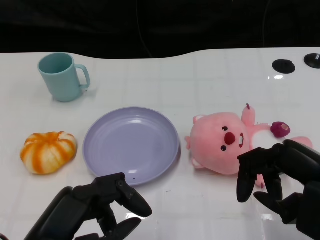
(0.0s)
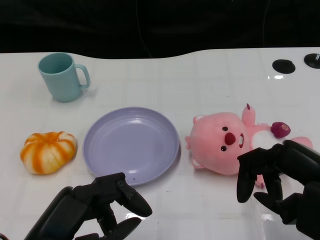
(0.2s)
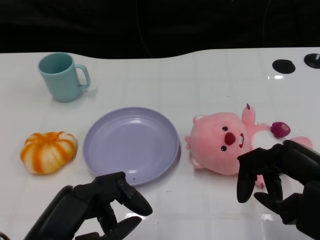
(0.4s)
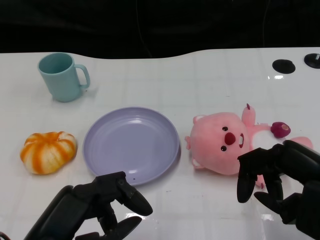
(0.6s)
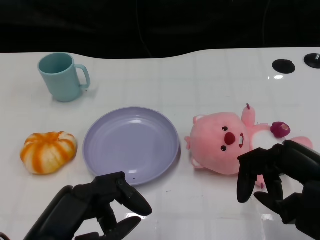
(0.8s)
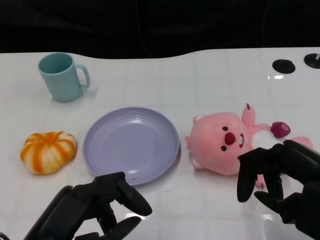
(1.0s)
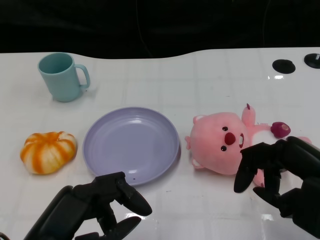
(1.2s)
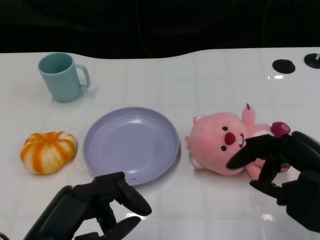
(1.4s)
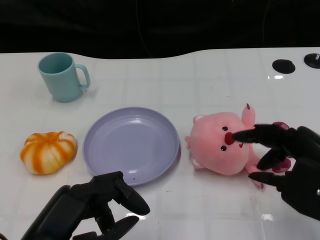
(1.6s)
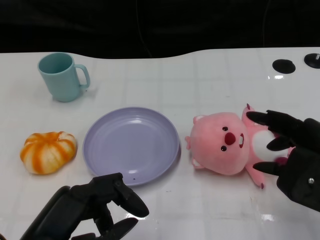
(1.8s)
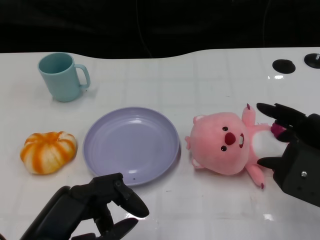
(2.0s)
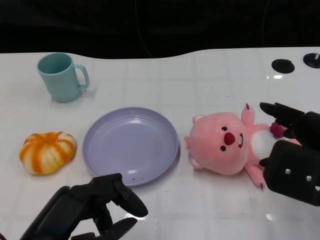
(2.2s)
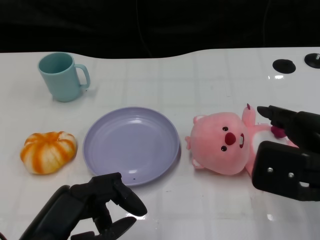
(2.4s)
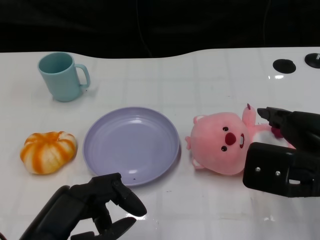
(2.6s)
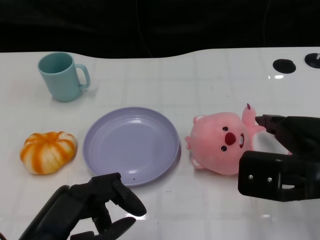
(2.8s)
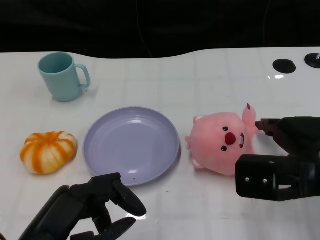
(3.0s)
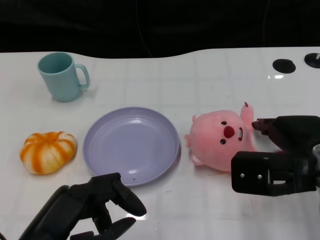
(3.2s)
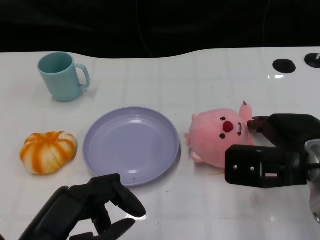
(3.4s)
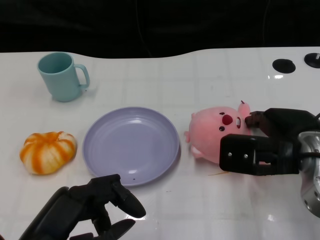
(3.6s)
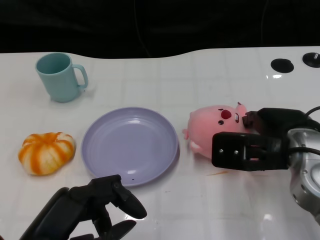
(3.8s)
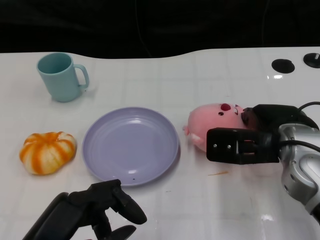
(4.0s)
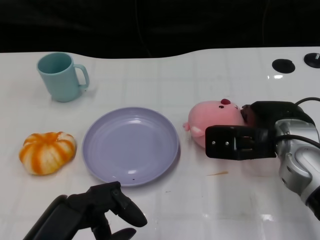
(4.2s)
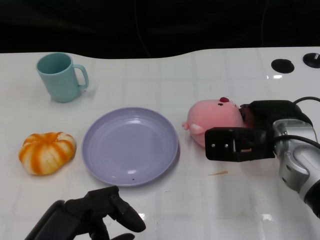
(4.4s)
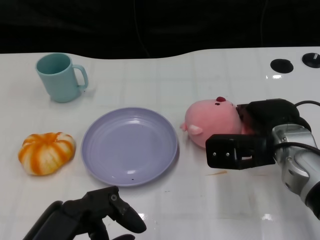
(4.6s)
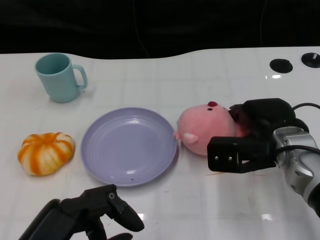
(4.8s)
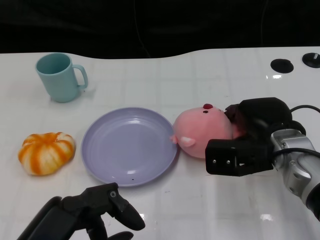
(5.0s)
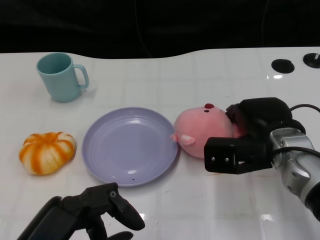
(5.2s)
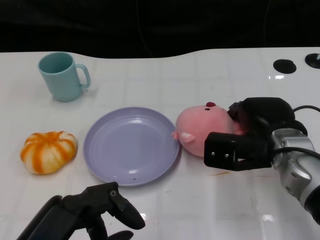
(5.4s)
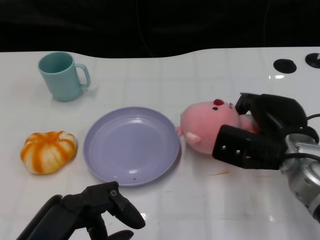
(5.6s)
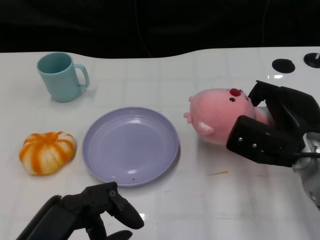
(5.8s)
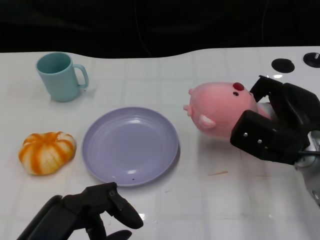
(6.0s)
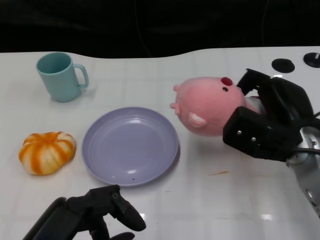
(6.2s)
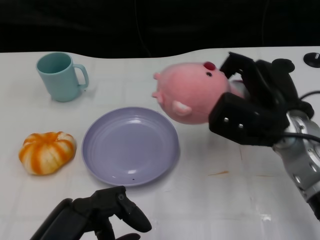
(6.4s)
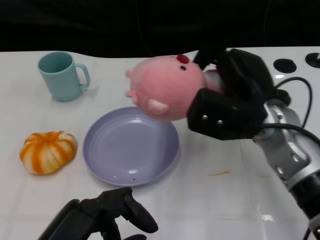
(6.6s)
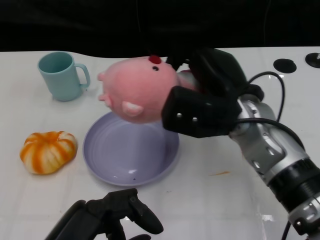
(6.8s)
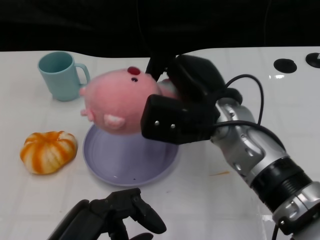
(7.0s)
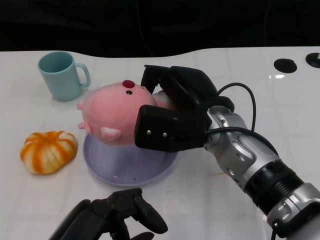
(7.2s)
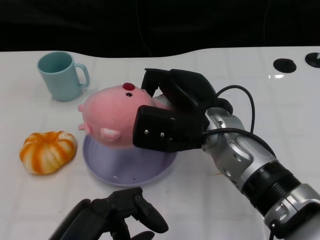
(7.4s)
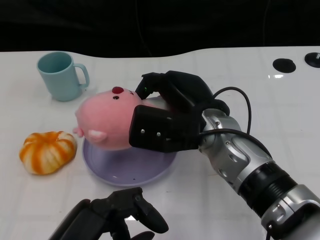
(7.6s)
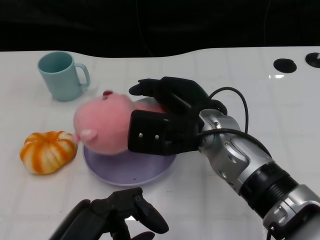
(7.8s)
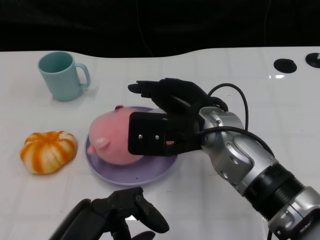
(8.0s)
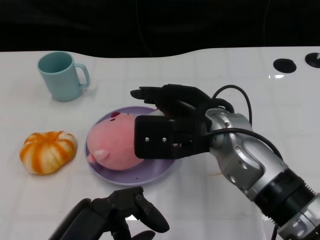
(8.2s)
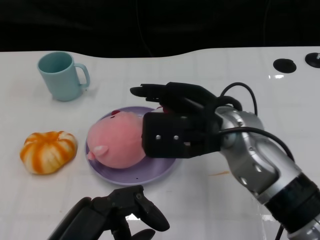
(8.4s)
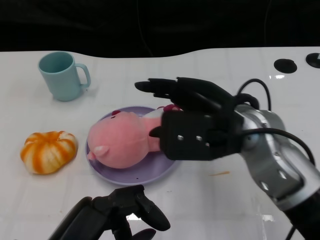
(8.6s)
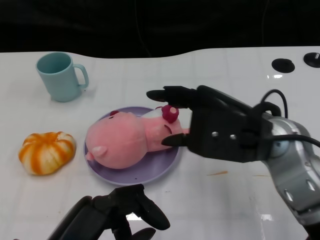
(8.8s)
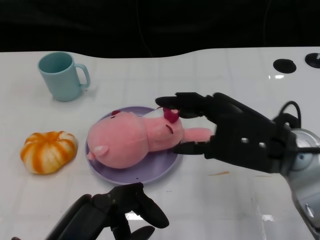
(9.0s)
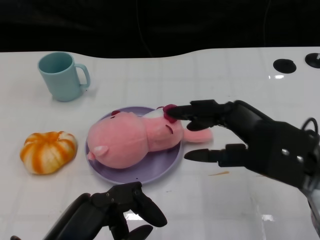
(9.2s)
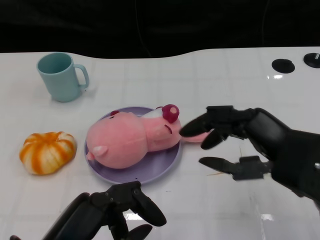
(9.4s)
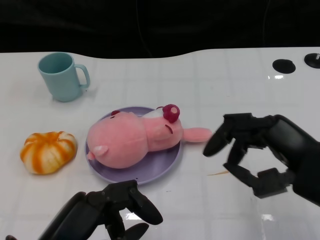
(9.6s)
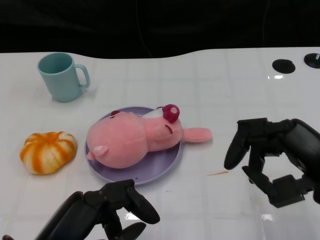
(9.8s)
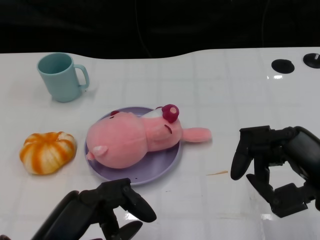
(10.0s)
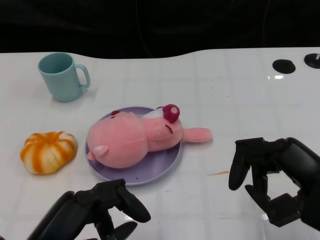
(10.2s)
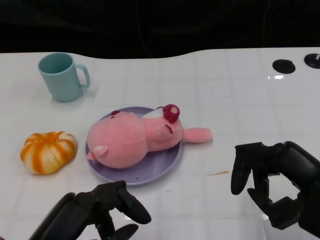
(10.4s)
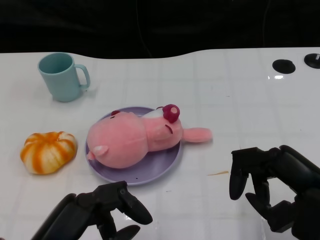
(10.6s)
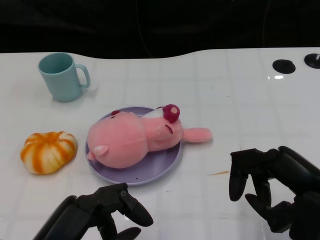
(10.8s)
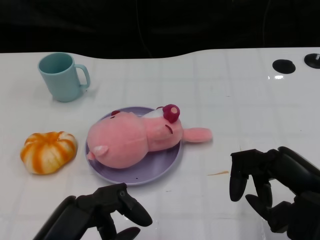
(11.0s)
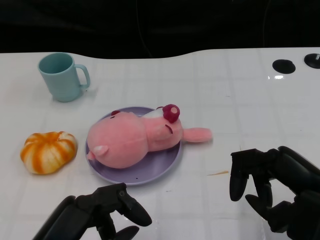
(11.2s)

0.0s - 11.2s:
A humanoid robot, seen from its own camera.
Task of the whole recording: Pick up the doll on the other side of the plate and place it into the plate.
Step, 1.2s - 6.4s: Grasp the pink doll with the right gripper.
Step, 6.6s - 8.6s: Place the pink doll into the plate with the right gripper.
1.6s - 3.2s: The right hand shifts some 5 cm forward.
3.2s - 4.8s: The right hand goes about 10 cm forward and downward.
6.4s - 8.0s: The right hand heads to the left, covering about 10 cm.
8.0s - 9.6s: The right hand moves to the right and backward, roughly 20 cm.
9.6s - 11.2s: The hands make only small movements.

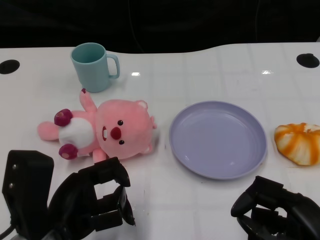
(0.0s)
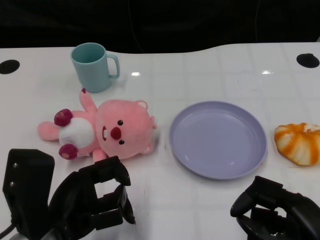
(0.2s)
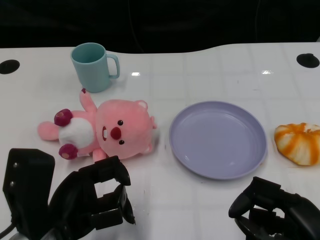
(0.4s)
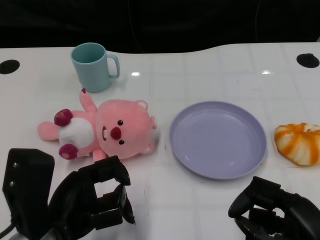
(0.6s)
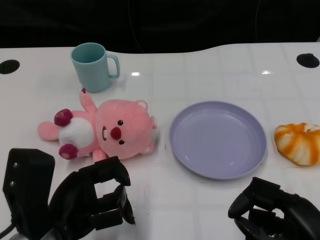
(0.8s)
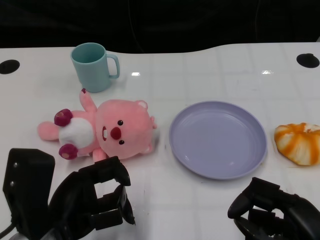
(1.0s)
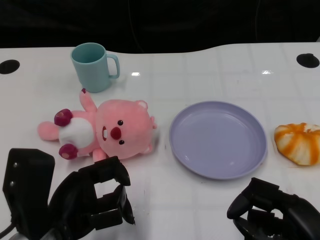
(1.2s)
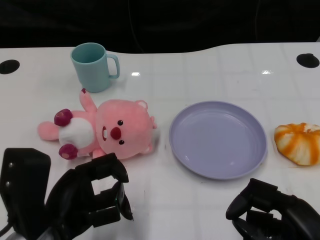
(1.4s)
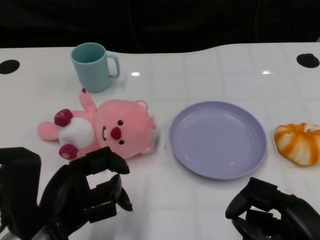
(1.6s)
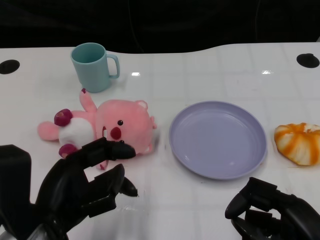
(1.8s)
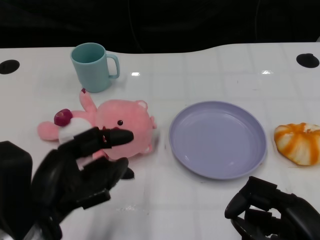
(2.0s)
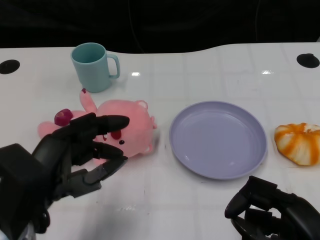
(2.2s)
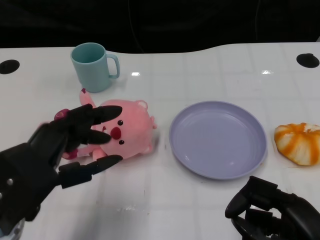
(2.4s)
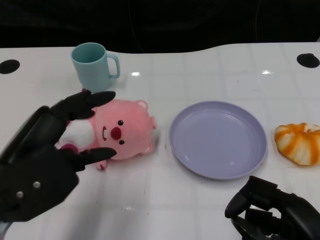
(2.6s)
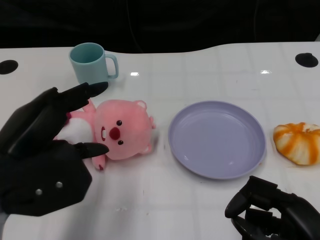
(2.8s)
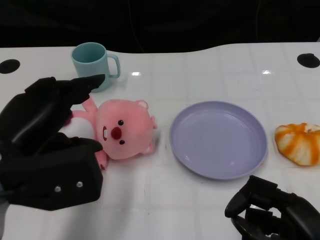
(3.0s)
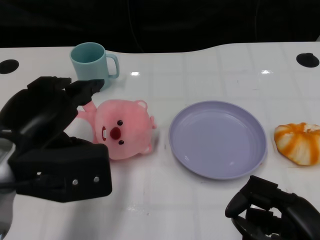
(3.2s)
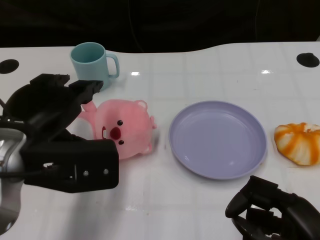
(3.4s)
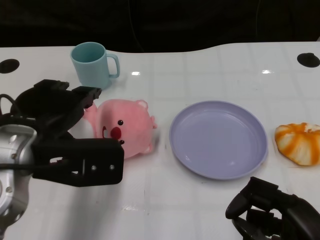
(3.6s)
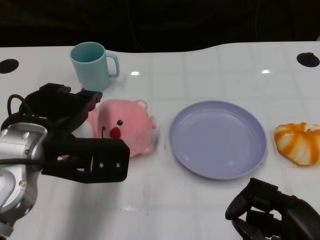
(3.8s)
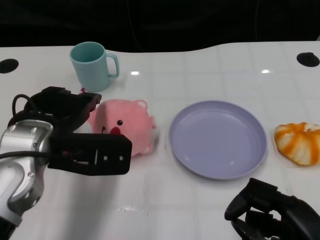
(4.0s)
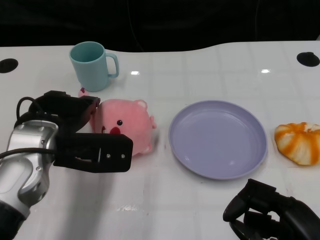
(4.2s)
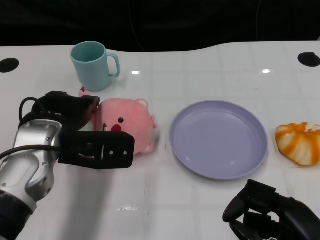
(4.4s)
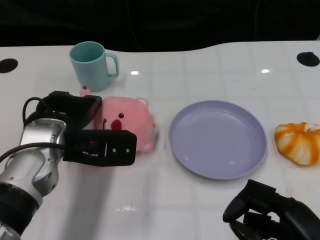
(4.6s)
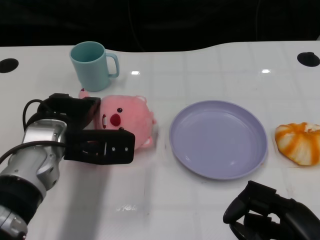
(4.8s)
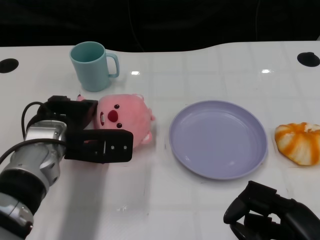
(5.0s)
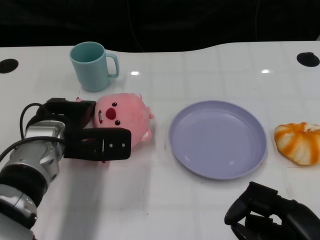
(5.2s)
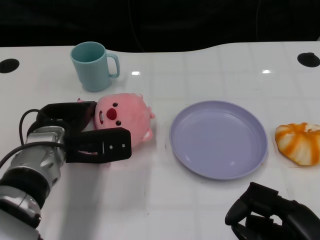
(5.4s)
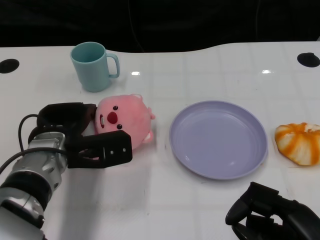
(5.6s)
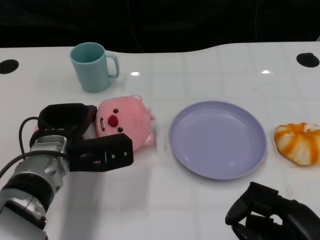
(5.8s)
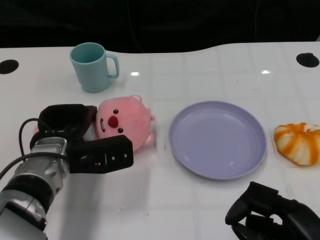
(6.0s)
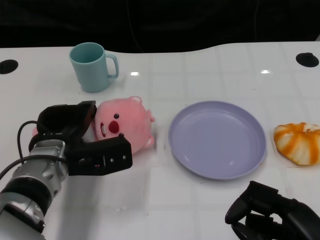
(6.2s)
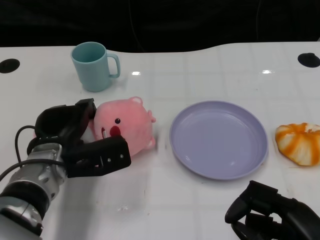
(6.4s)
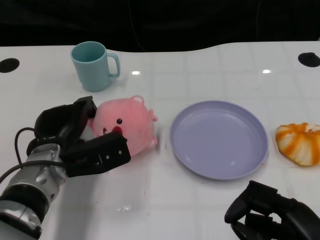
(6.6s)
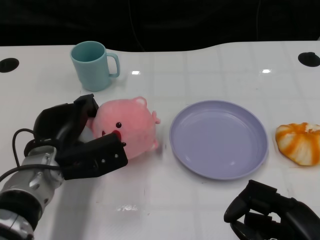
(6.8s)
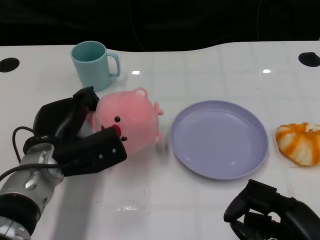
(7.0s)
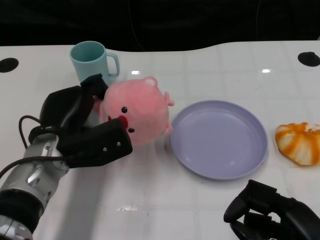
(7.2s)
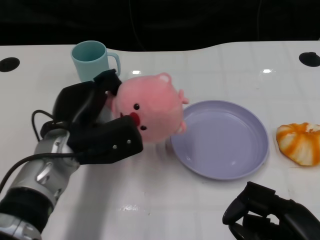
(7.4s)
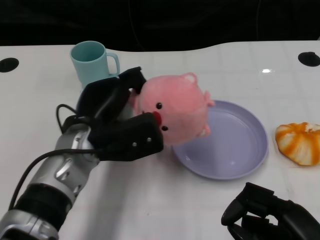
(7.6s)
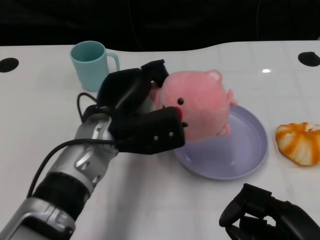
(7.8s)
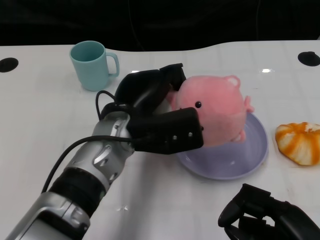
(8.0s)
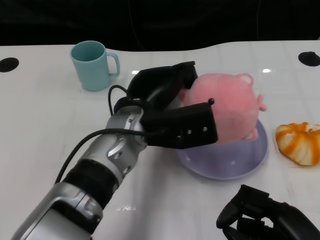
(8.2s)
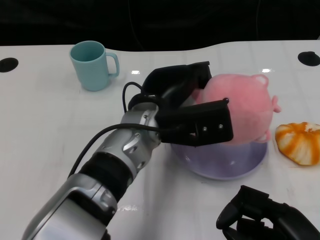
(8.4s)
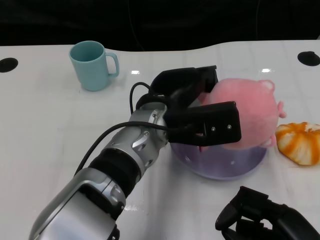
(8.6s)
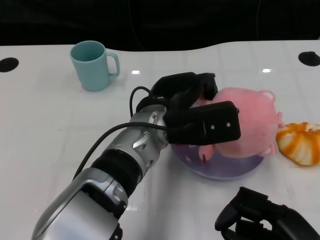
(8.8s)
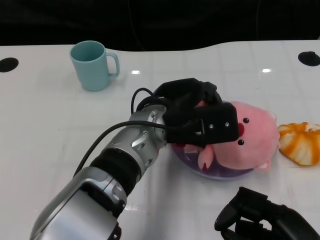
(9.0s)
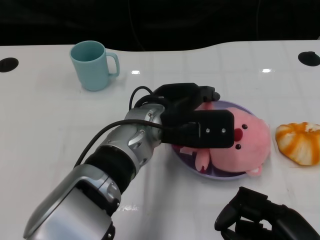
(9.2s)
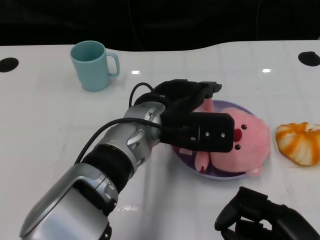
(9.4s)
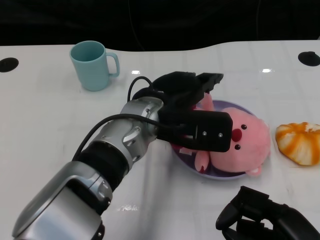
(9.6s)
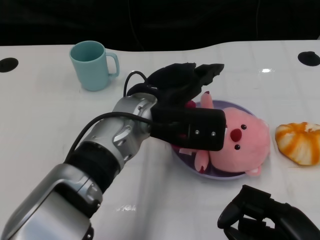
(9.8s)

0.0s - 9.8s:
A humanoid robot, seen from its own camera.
Task of the whole recording: Pick up the doll on one side of the plate and place it into the plate.
Step, 1.4s - 6.8s: Grasp the pink doll with the left gripper.
Step, 7.2s - 9.6s: Place the pink doll into the plate with the left gripper.
1.4s - 2.8s: The left hand moves upward, about 5 cm.
2.8s - 4.2s: The left hand travels forward by some 10 cm.
4.2s - 5.6s: The left hand heads downward, covering some 5 cm.
7.0s - 8.4s: The left hand moves to the right and upward, some 15 cm.

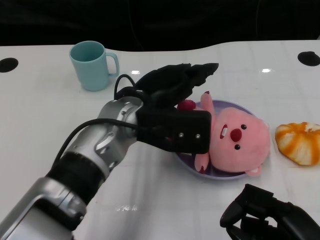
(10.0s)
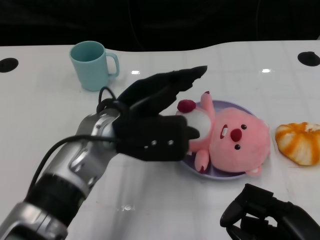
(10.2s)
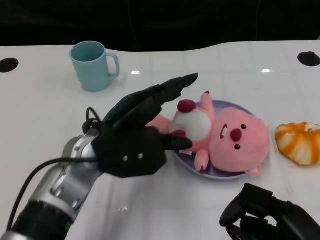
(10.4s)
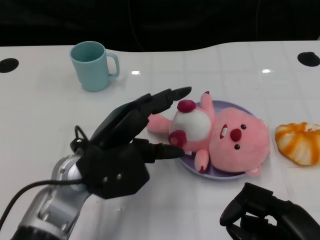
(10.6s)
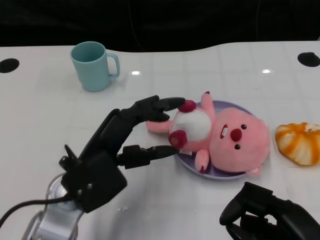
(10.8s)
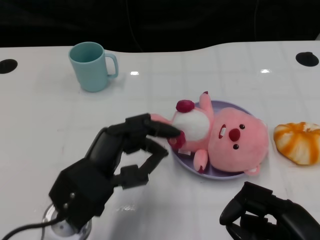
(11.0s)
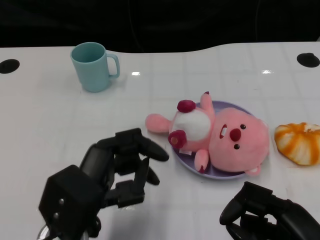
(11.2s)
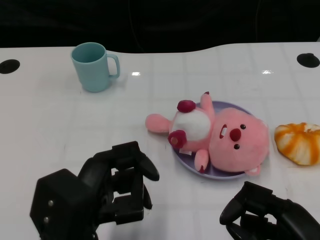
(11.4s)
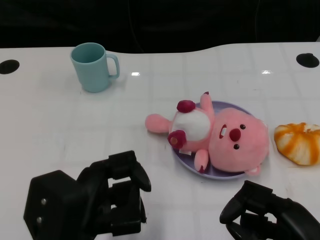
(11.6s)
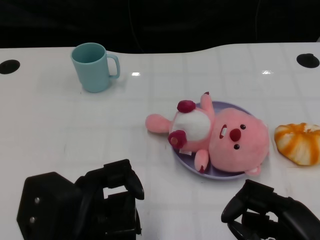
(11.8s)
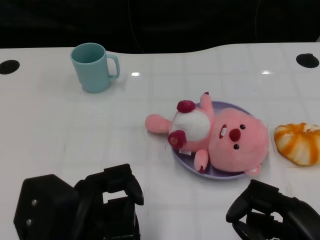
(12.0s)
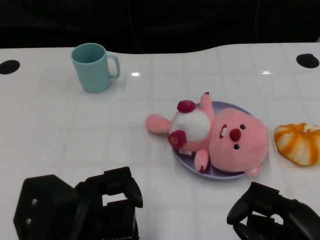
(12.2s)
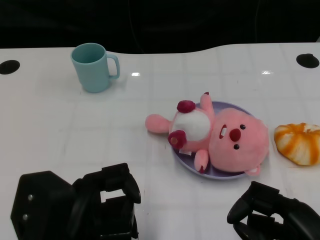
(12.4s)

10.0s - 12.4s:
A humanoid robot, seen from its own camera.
Task of the whole recording: Pick up the doll on one side of the plate and place it into the plate.
10.0s - 11.2s: The left hand shifts approximately 15 cm backward and to the left.
